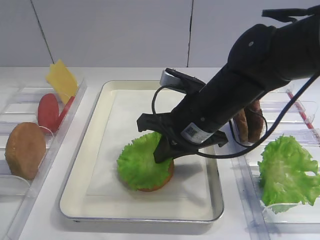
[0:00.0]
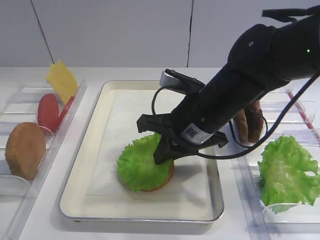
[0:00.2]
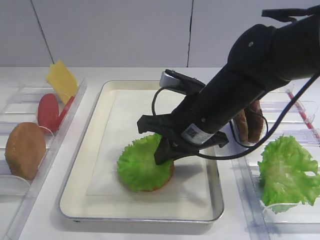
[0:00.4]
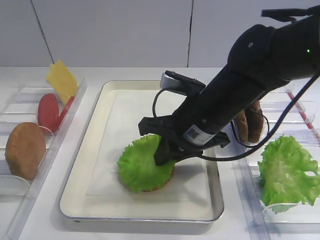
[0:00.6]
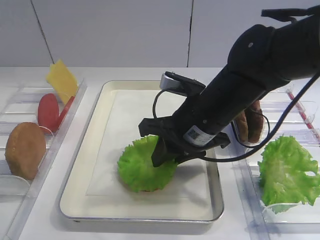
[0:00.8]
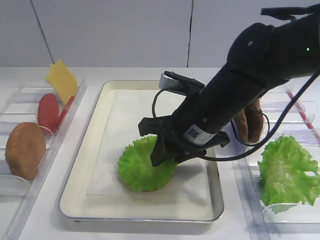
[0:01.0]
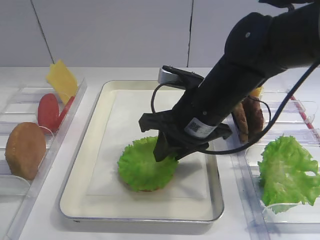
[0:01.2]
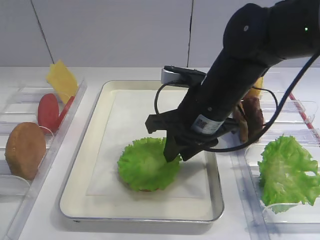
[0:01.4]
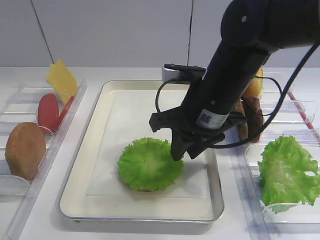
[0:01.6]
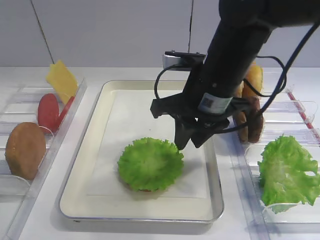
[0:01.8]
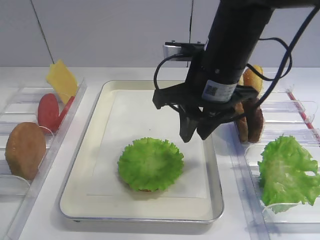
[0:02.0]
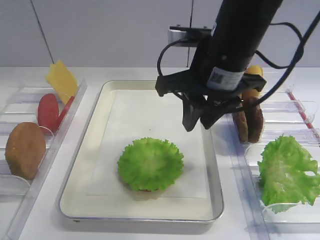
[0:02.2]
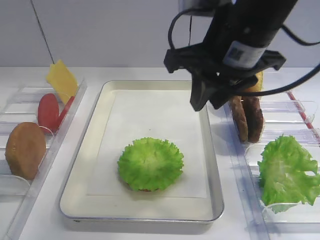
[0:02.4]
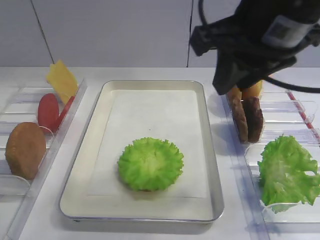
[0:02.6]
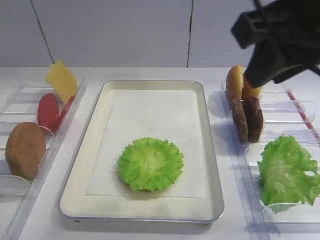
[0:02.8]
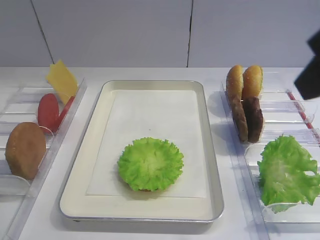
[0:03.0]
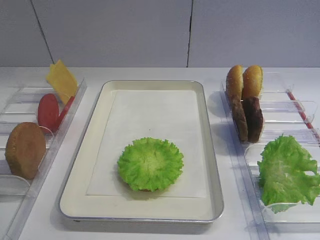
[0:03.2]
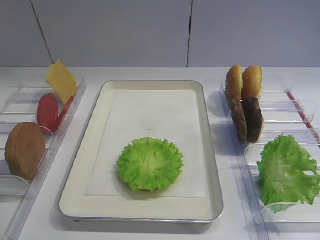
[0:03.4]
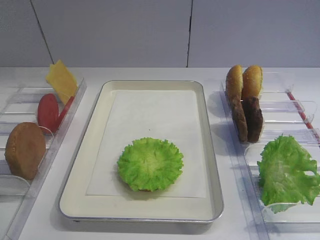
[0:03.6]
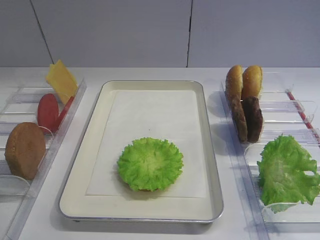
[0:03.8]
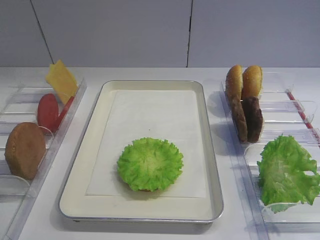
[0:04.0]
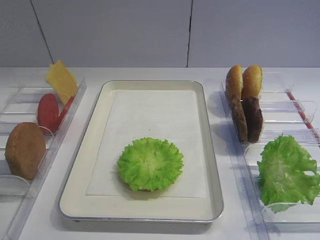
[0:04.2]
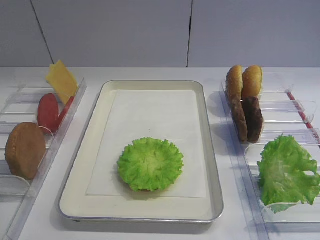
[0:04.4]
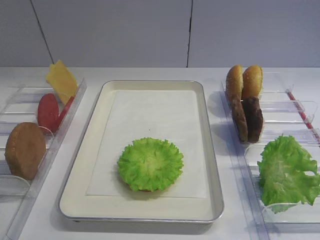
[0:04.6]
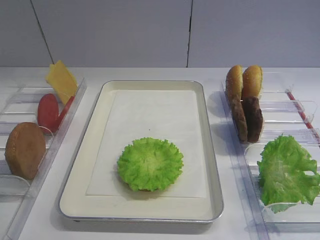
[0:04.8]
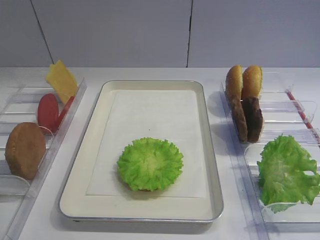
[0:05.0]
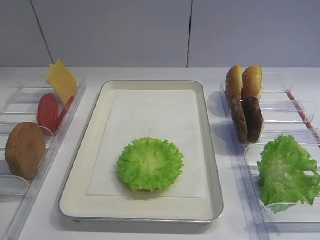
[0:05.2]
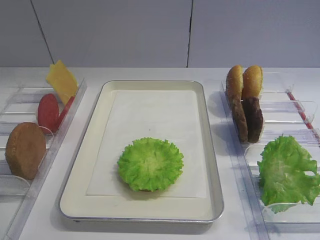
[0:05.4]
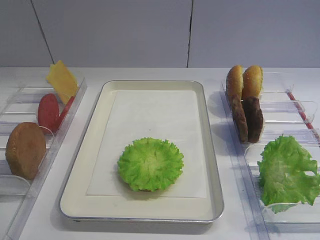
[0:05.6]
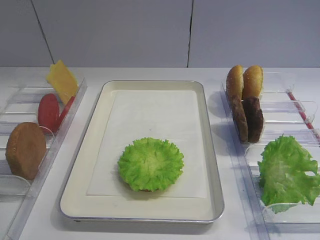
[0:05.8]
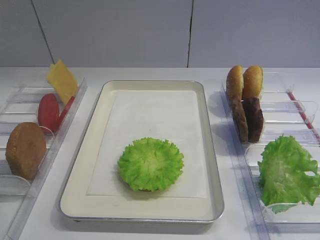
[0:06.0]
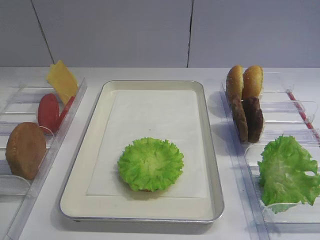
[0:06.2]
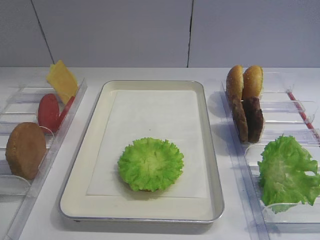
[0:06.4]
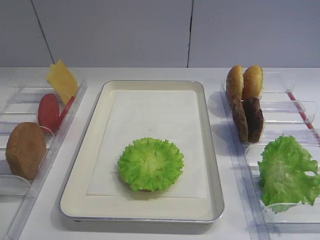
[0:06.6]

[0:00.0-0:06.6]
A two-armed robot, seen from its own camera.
0:00.0 to 0:01.6: The right gripper opens.
0:01.6 to 0:03.2: The right gripper heads backward, upward and to the right, covering some 30 cm.
